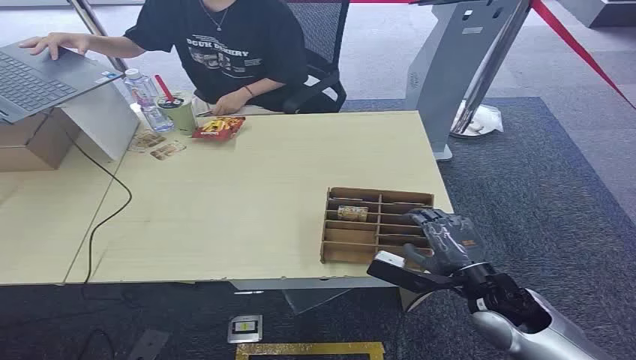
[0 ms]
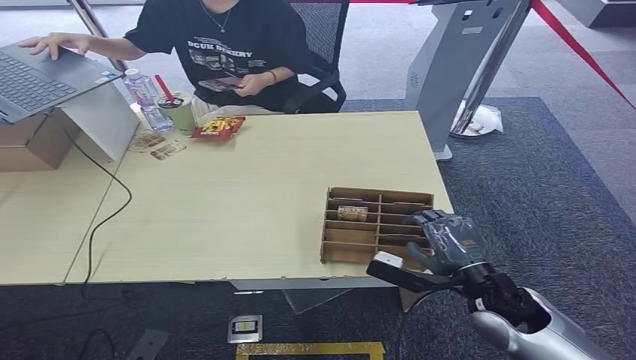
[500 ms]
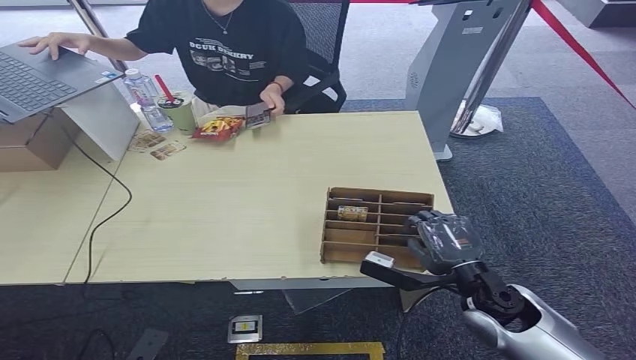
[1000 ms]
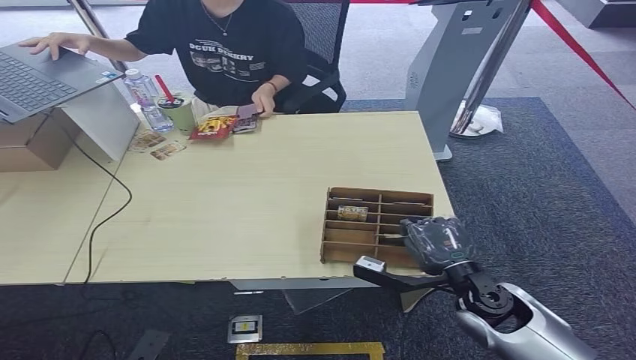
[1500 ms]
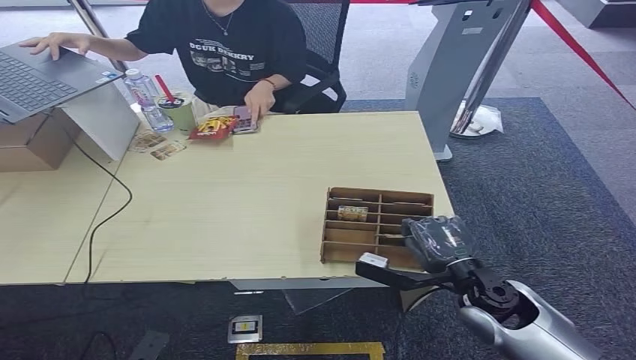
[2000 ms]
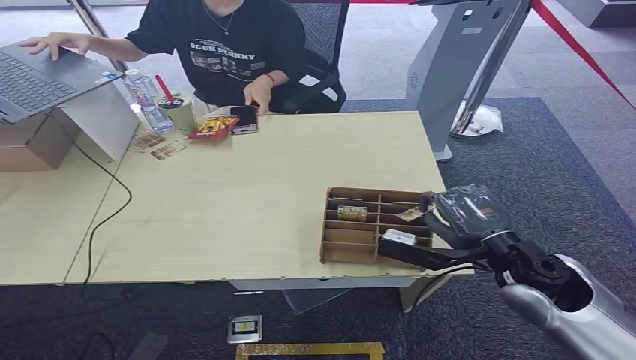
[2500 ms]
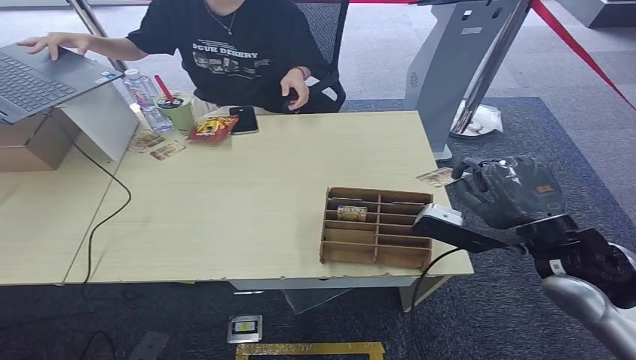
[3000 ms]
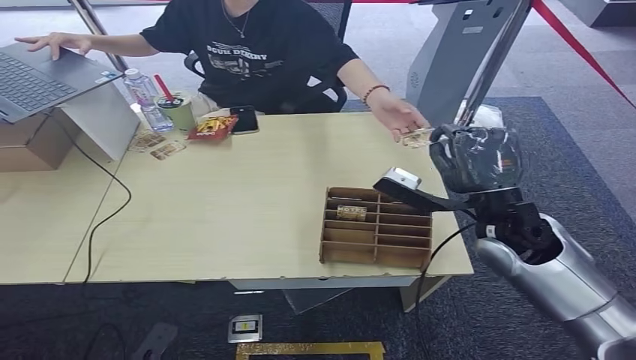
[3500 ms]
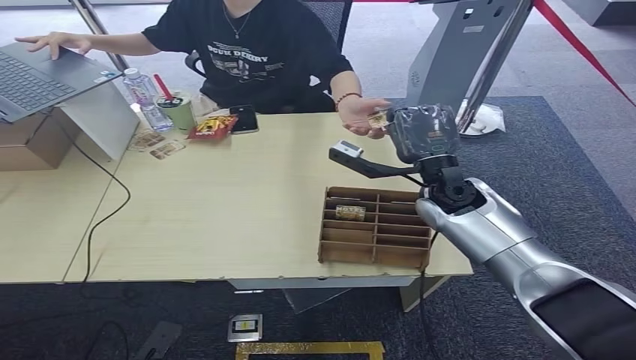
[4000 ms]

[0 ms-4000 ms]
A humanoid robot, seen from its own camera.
Step, 0 ms to 3000 ms: Pick up the room card from the card holder.
Step, 3500 ms to 4000 ms: Hand the room card to the target.
